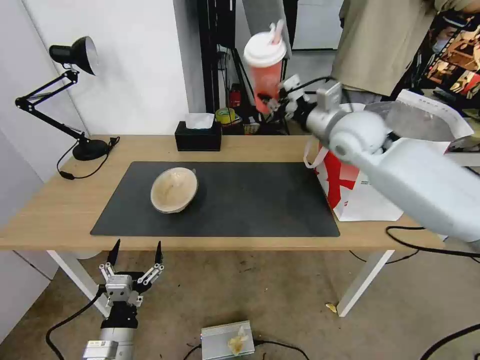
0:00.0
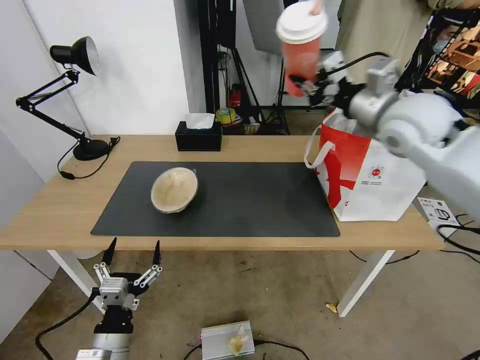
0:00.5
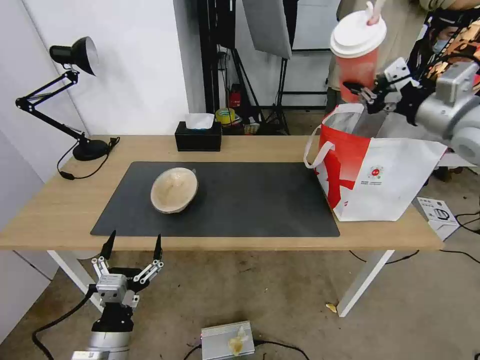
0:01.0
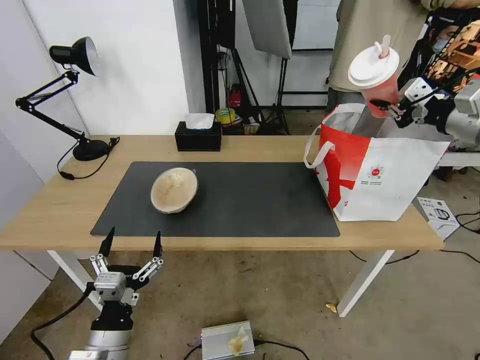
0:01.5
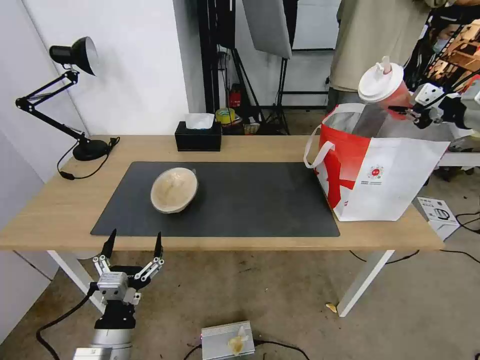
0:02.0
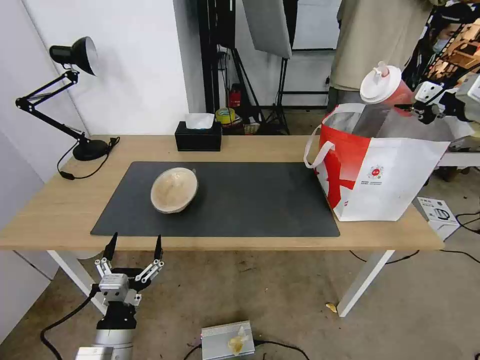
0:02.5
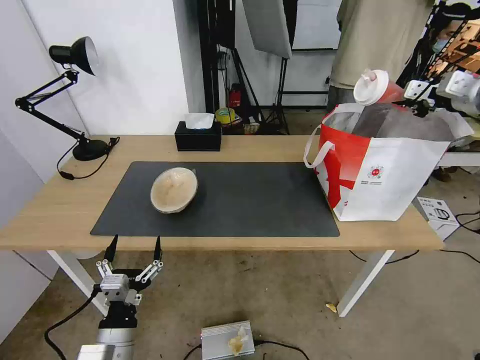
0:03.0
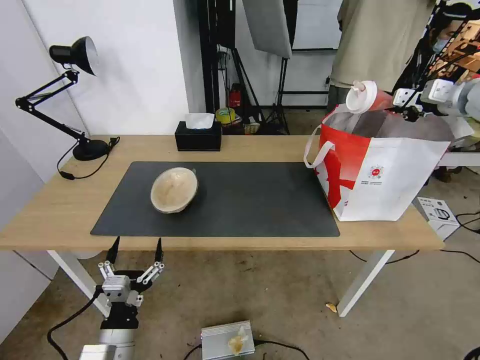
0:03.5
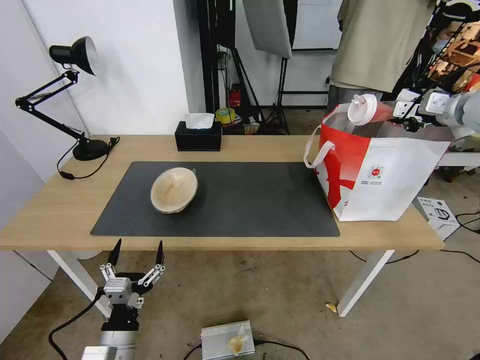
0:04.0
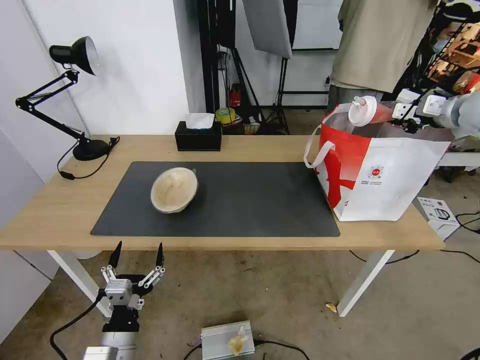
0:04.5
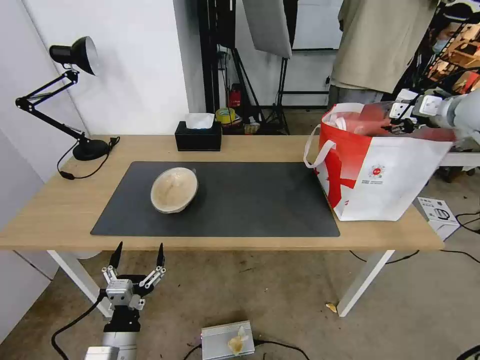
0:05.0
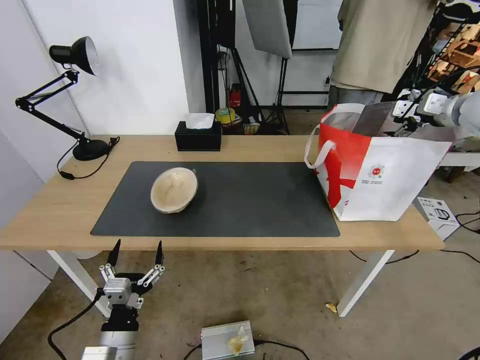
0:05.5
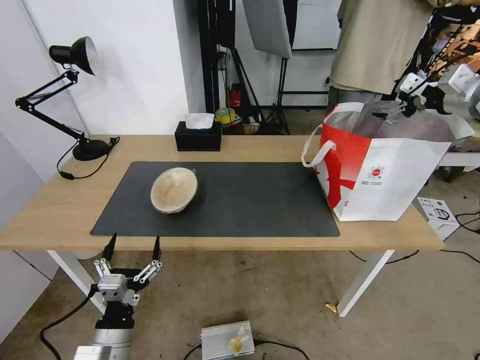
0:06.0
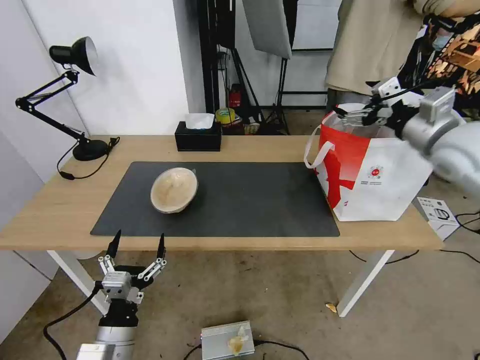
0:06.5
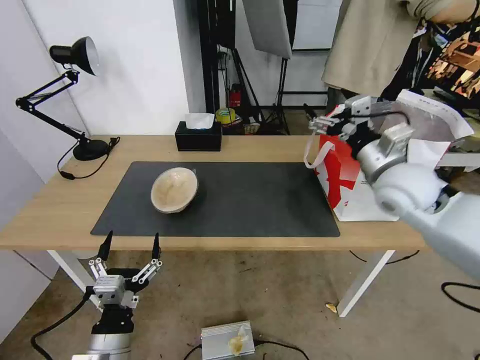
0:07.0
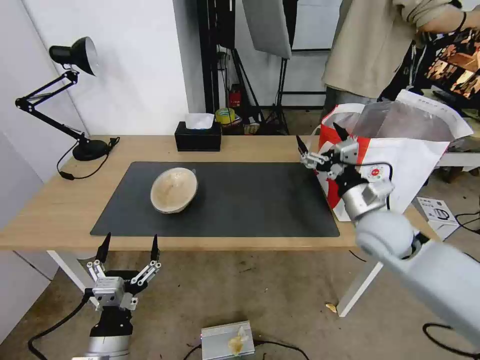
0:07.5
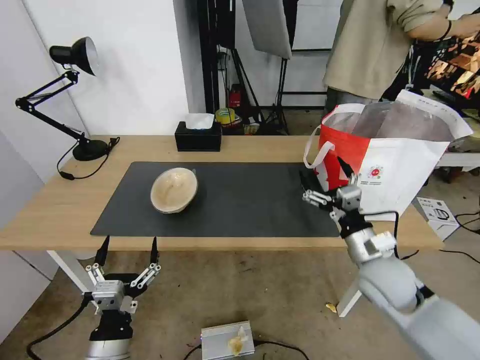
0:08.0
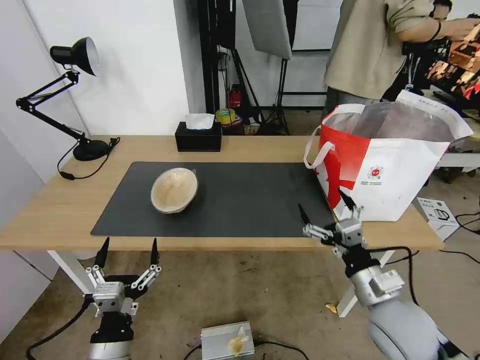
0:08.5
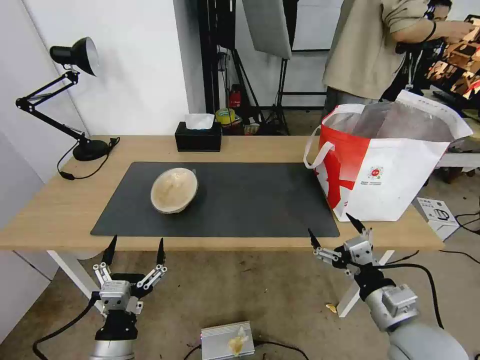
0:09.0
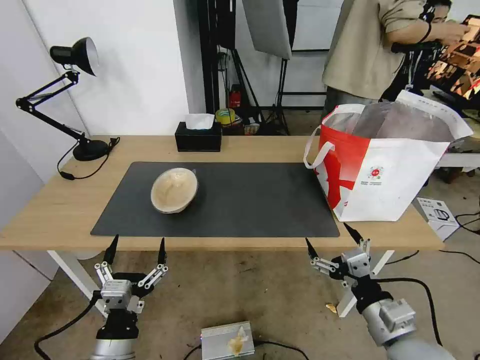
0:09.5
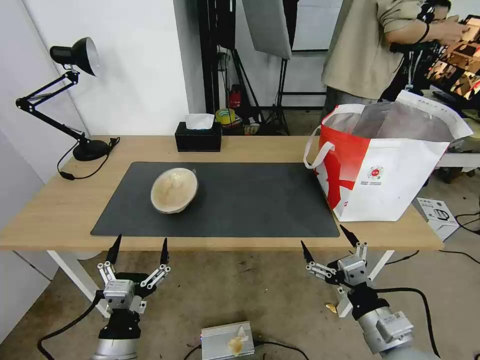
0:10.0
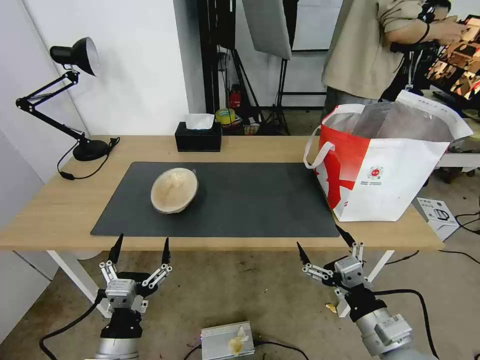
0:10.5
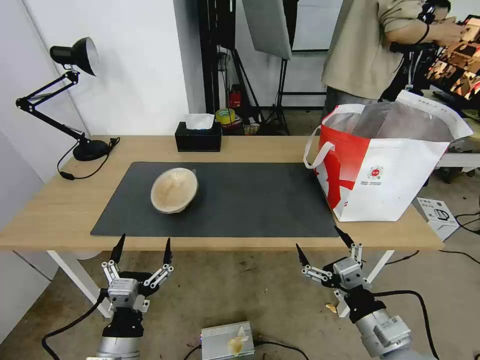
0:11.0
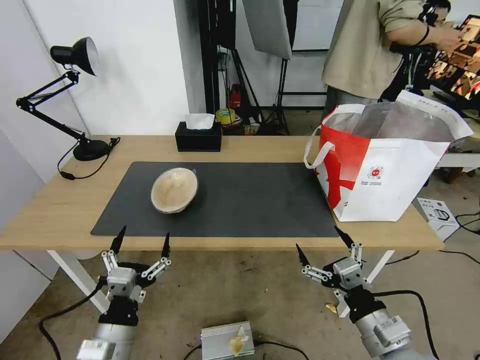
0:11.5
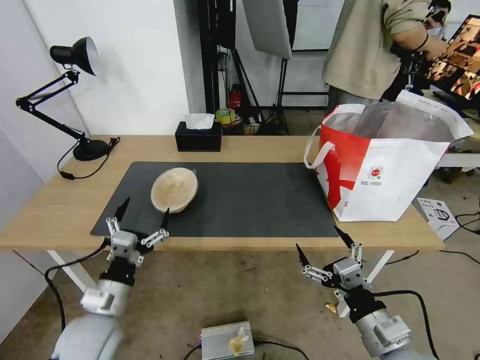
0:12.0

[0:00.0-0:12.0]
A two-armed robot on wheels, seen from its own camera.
Task of the whole recording: Pick up the trash from the table and place it into the takeout bag.
0:00.0 to 0:02.0: The right gripper moves to the right, roughly 25 cm.
0:02.0 to 0:04.0: The right gripper moves forward, some 10 cm.
0:04.0 to 0:06.0: The right gripper opens its fingers.
0:06.0 to 0:08.0: The right gripper is displaced downward, backward and to the left by roughly 40 cm.
0:08.0 to 0:10.0: The right gripper is displaced backward by some 15 cm.
0:10.0 to 0:12.0: The left gripper is displaced forward and to the left by approximately 10 cm.

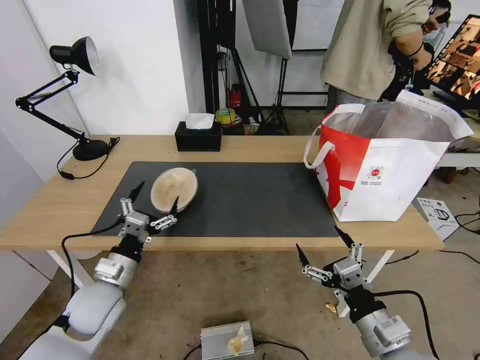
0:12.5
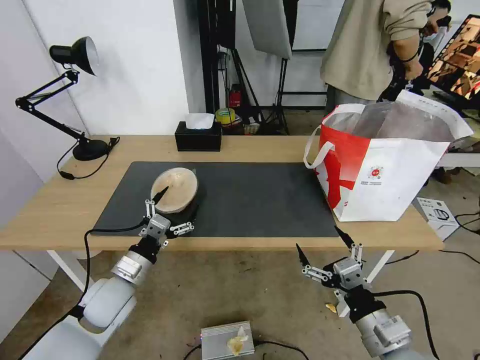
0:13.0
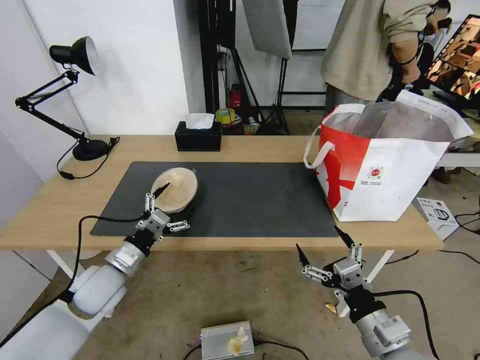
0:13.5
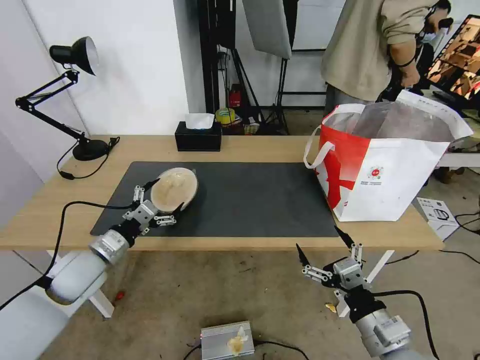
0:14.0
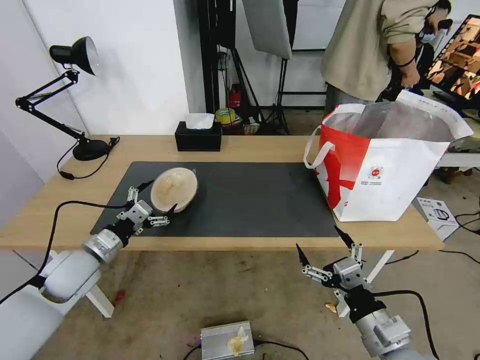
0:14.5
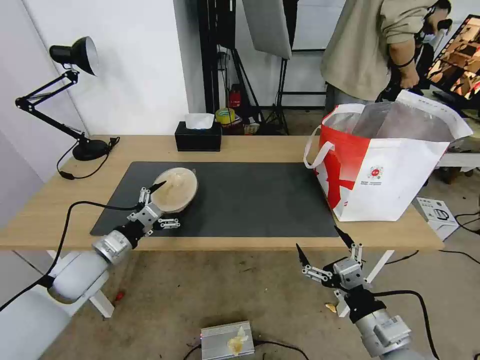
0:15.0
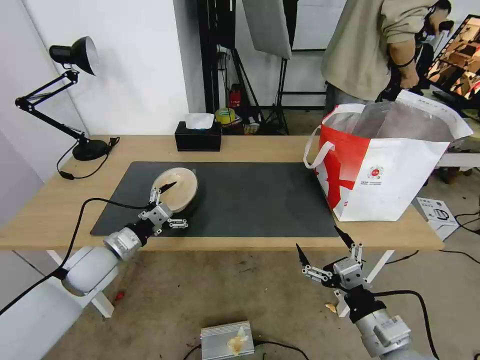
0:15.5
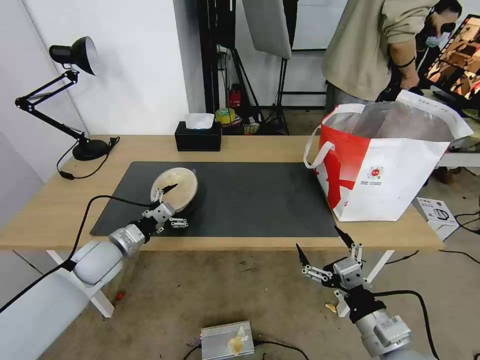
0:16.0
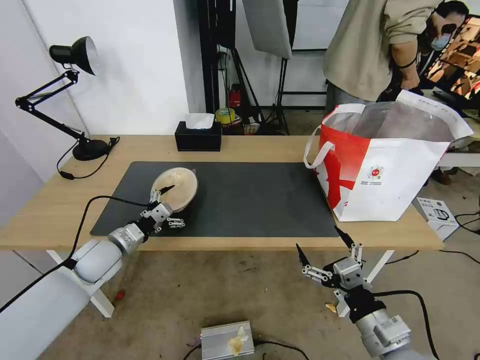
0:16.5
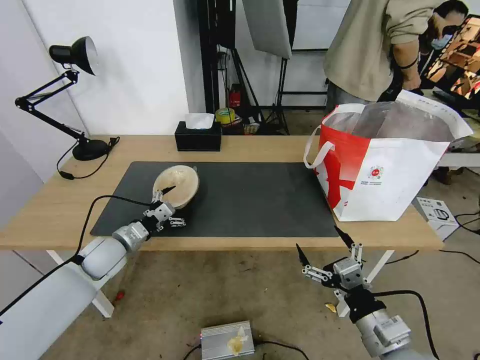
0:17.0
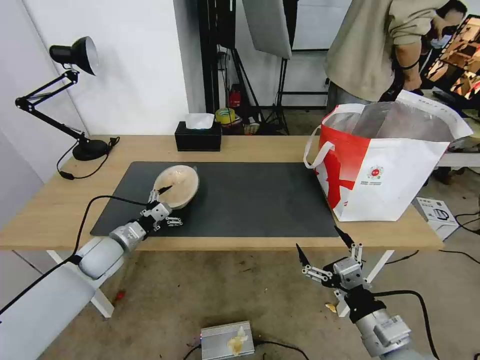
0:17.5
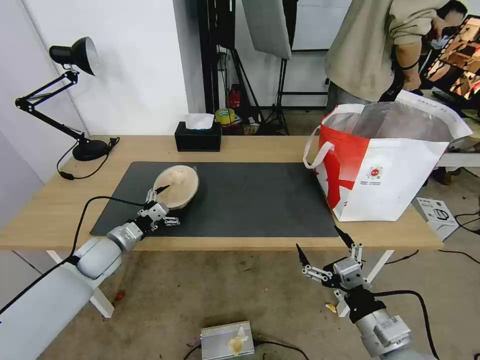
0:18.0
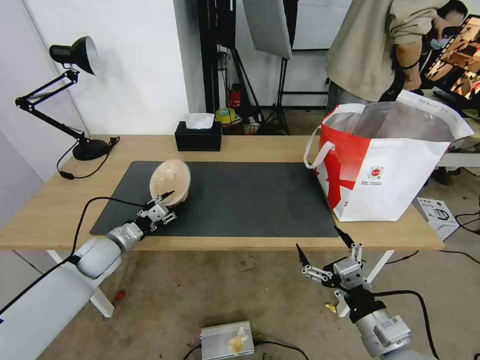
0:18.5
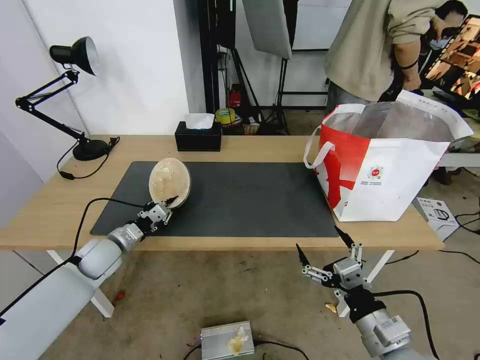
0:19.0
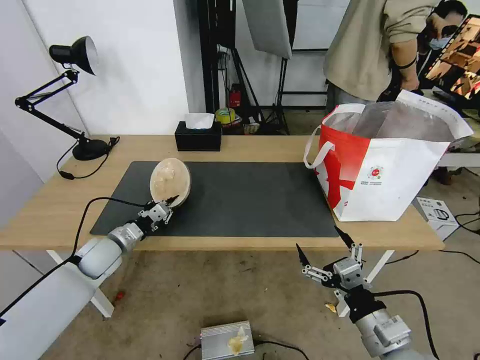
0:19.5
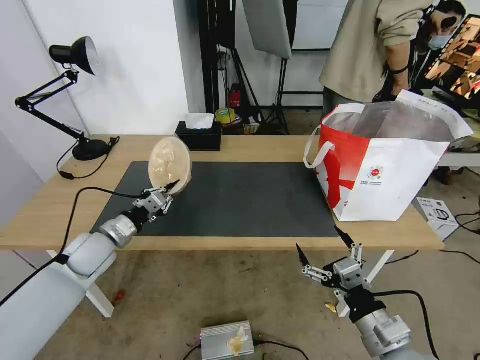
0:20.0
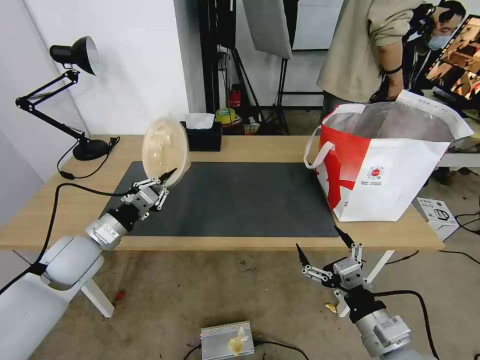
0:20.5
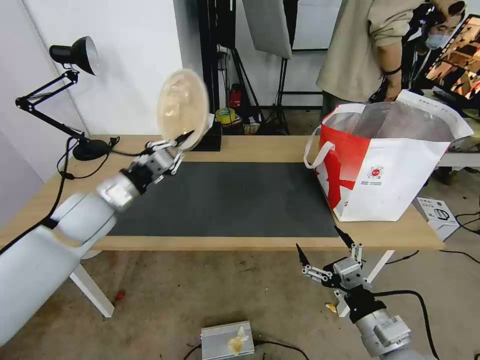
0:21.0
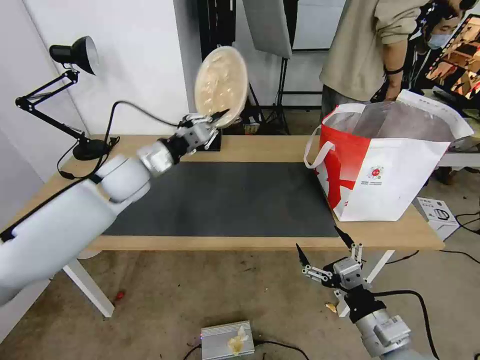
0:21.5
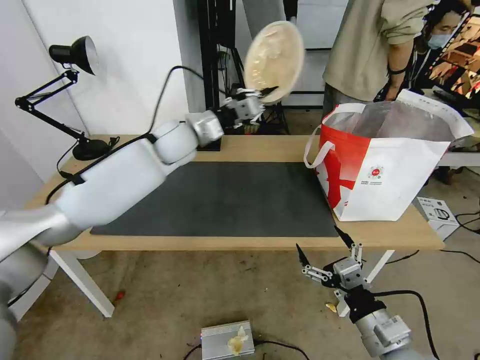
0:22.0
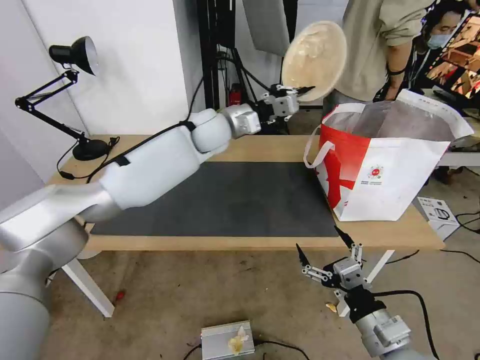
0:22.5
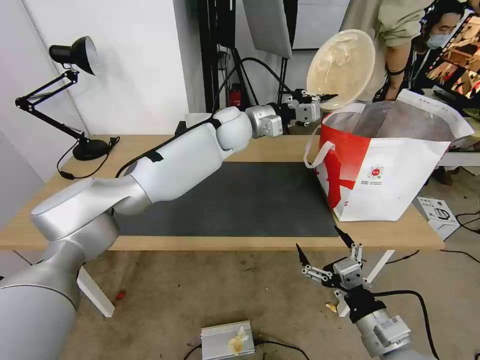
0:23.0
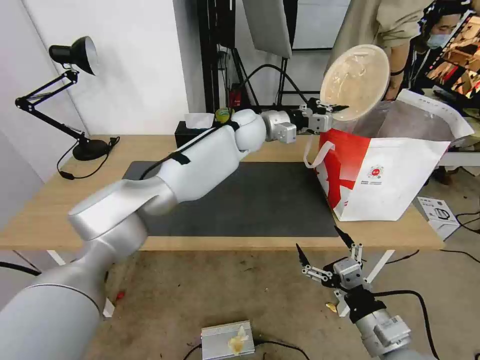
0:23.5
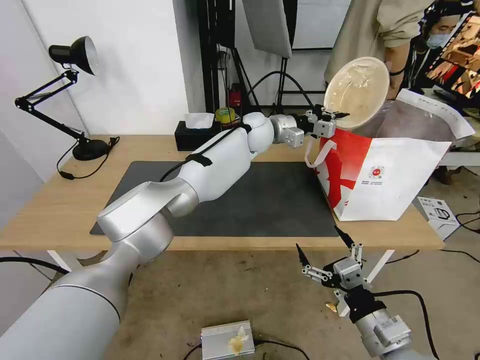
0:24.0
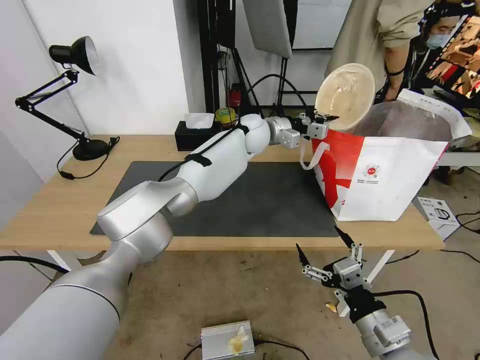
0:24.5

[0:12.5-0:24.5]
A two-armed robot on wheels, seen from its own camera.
Task of the whole recording: Pick up the trash from the table and place it into the takeout bag.
0:12.5 to 0:14.5: The left gripper travels to the left and forward by about 10 cm.
0:14.5 to 0:16.5: The left gripper moves approximately 5 cm.
0:16.5 to 0:18.5: The left gripper closes.
0:18.5 to 0:20.5: The left gripper heads upward and backward, covering about 10 cm, and closes.
0:20.5 to 0:22.5: The left gripper travels to the right, forward and upward by about 40 cm.
0:22.5 to 0:24.5: The left gripper shifts approximately 10 cm to the right and forward.

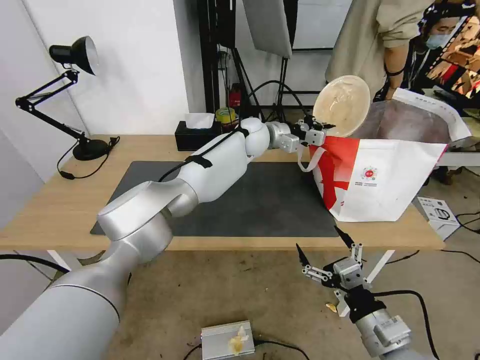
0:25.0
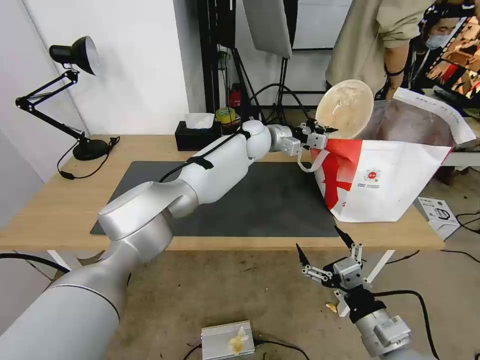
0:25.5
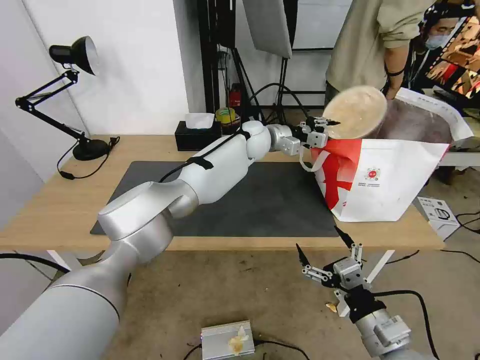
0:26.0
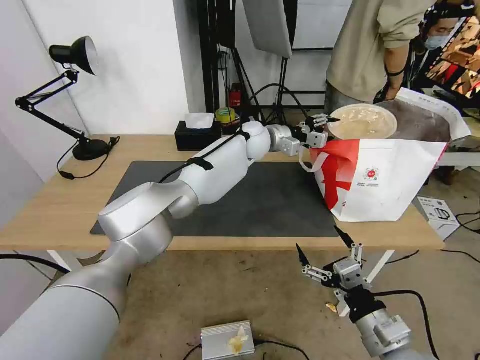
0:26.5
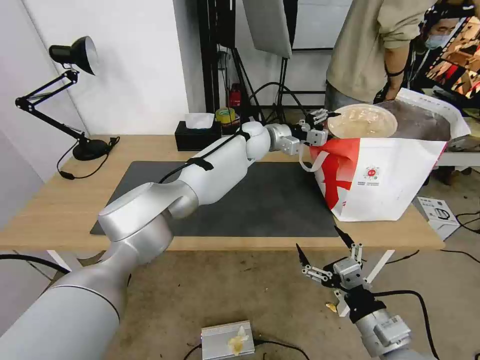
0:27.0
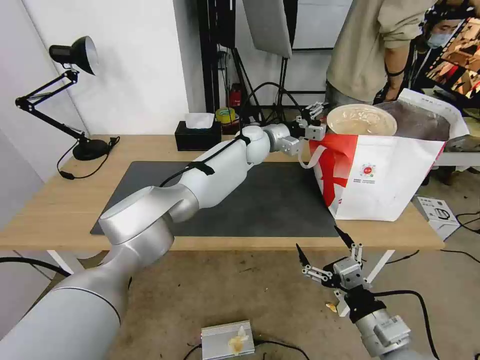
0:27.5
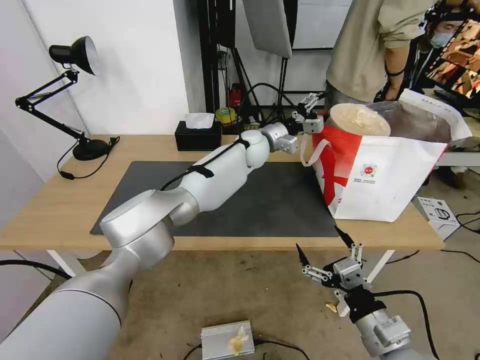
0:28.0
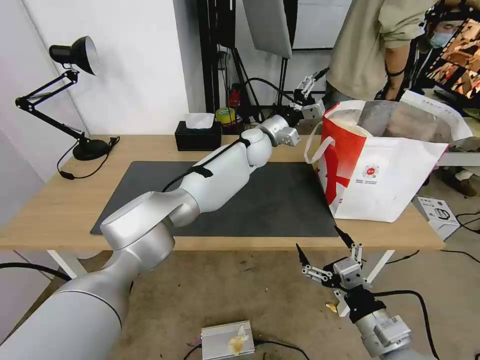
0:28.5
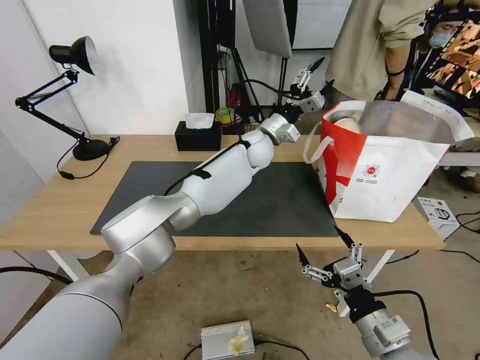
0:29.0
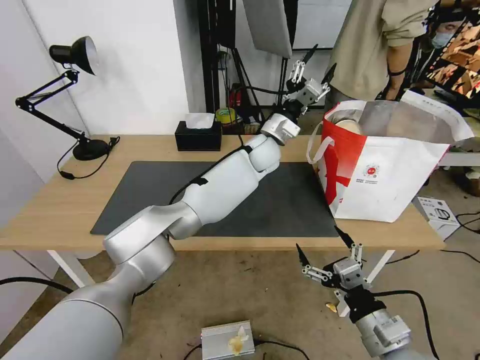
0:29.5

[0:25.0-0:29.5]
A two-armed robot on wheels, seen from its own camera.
Task of the whole recording: Pick up the trash from the table and place it into the takeout bag.
0:25.0 to 0:27.0: The left gripper opens up.
0:27.0 to 0:29.5: The left gripper changes place by approximately 5 cm.
